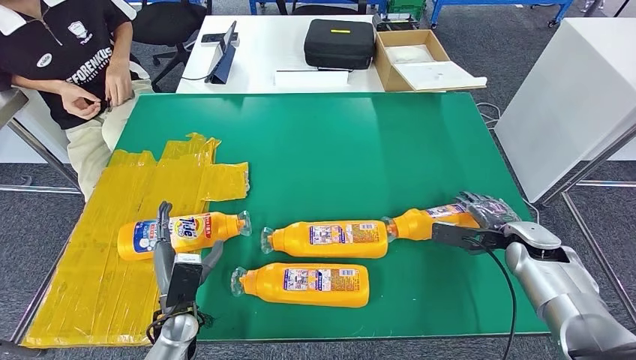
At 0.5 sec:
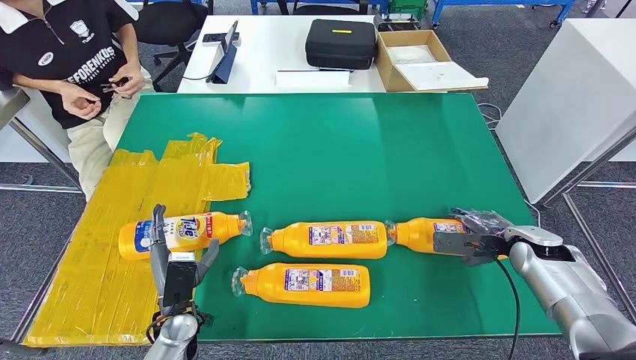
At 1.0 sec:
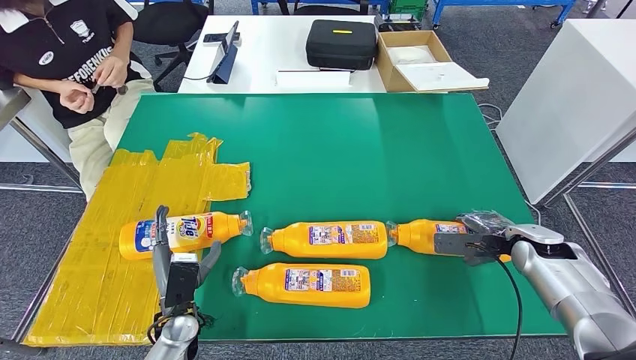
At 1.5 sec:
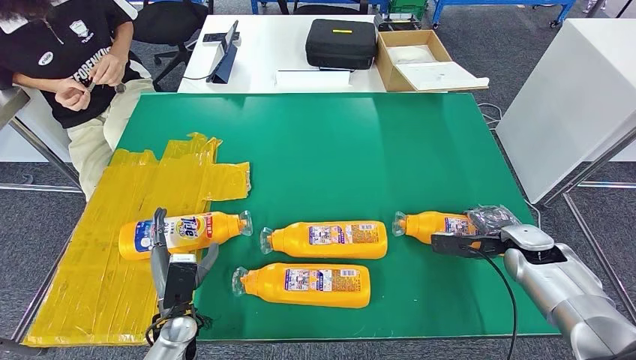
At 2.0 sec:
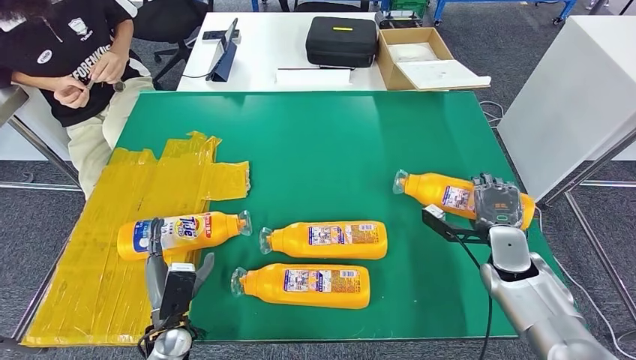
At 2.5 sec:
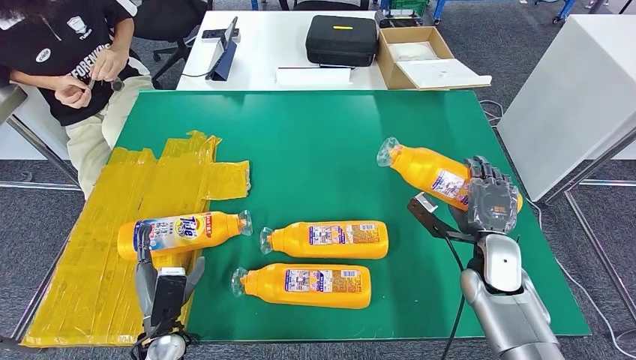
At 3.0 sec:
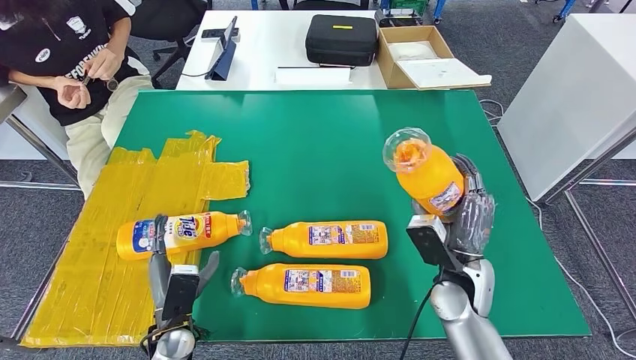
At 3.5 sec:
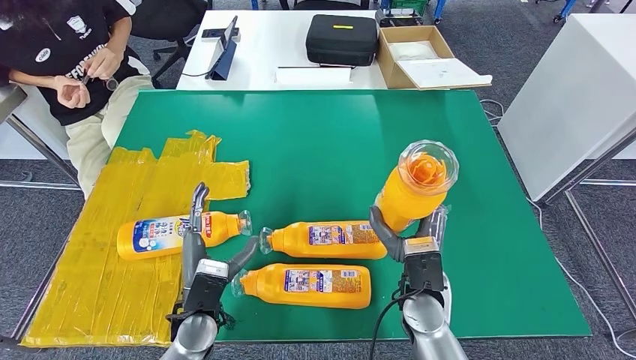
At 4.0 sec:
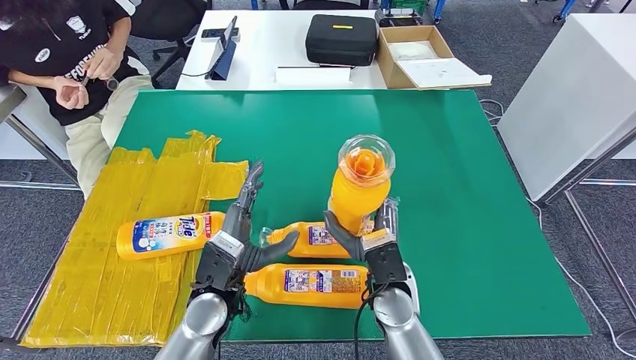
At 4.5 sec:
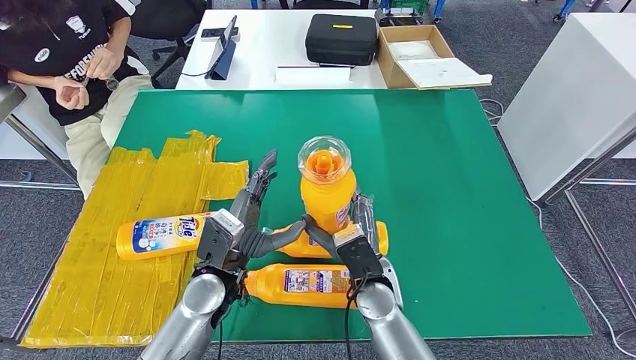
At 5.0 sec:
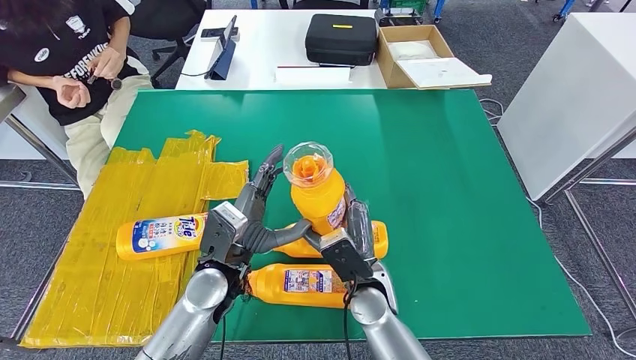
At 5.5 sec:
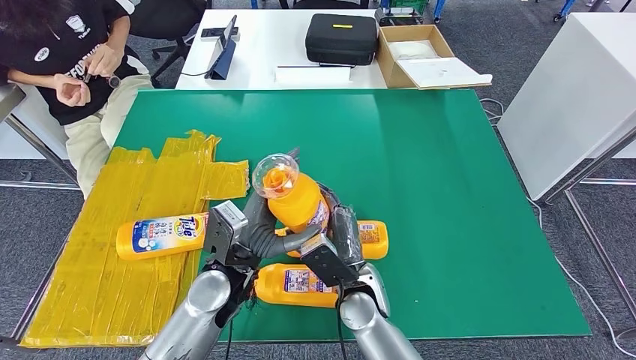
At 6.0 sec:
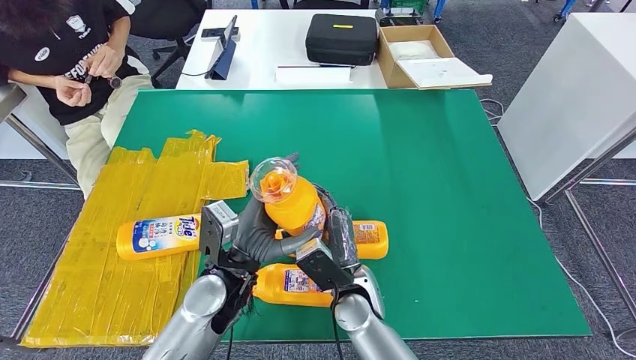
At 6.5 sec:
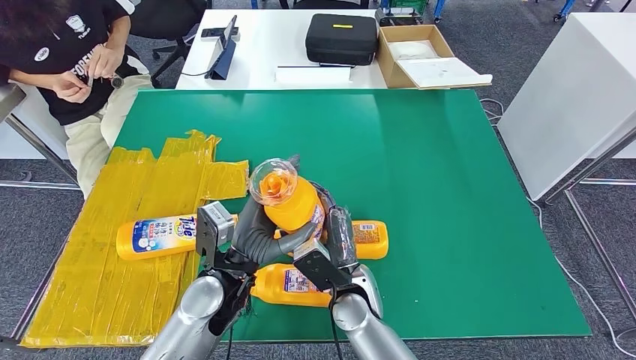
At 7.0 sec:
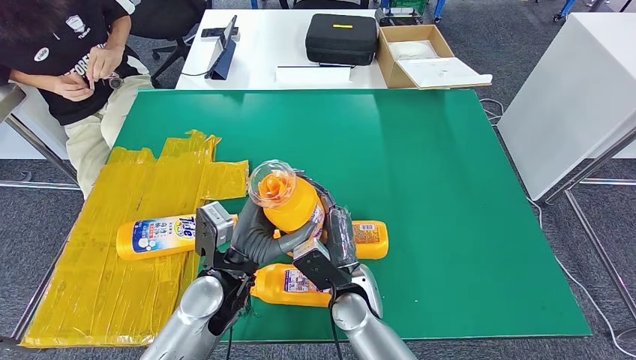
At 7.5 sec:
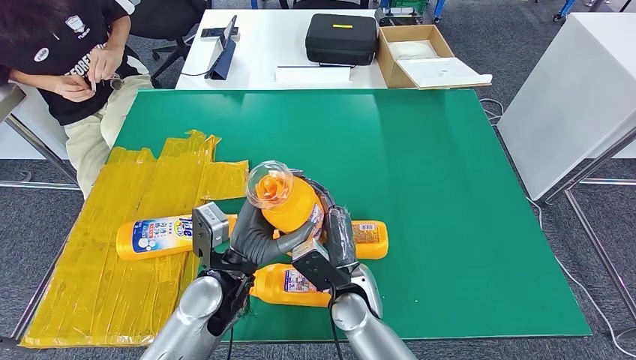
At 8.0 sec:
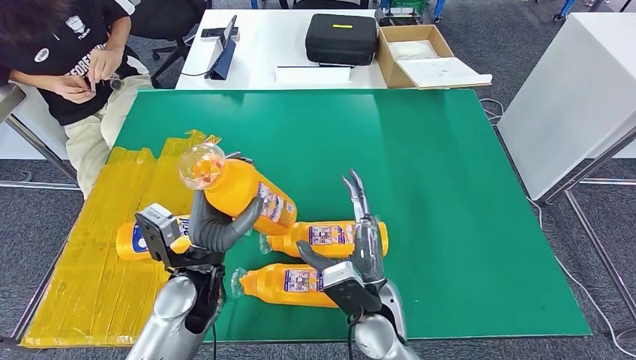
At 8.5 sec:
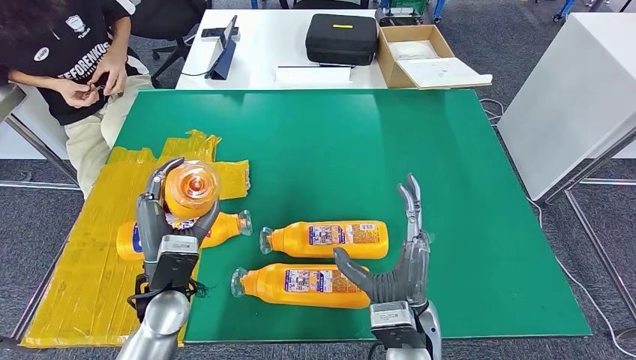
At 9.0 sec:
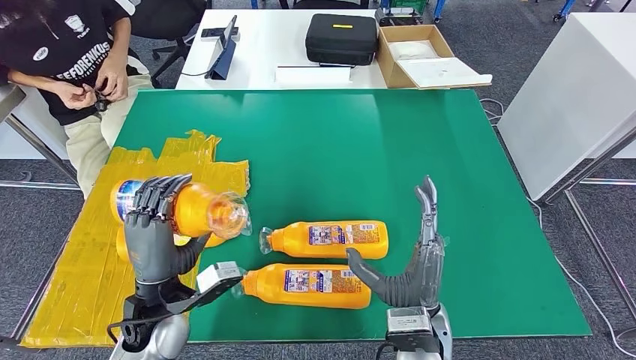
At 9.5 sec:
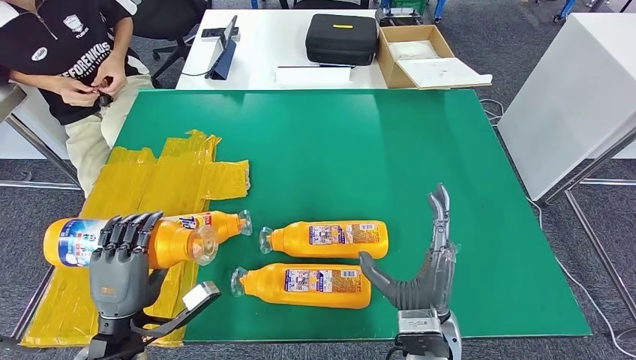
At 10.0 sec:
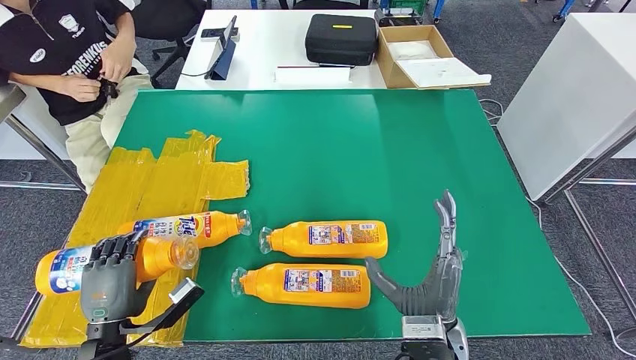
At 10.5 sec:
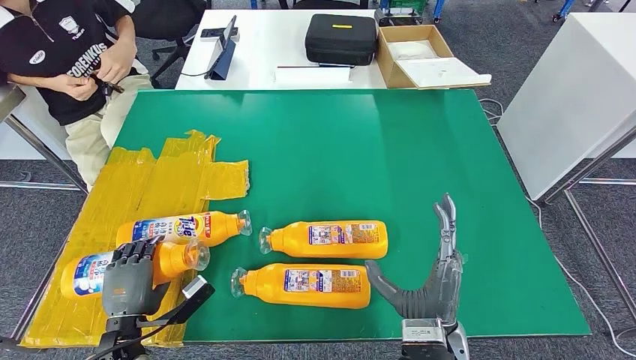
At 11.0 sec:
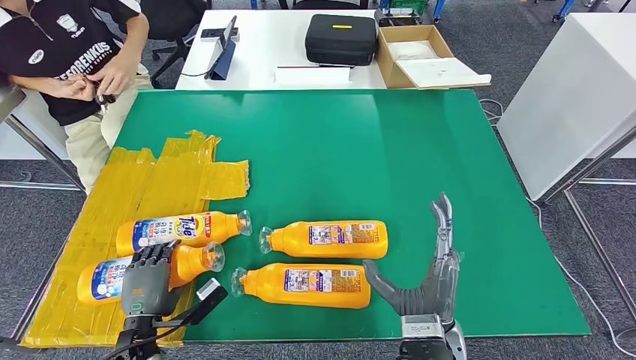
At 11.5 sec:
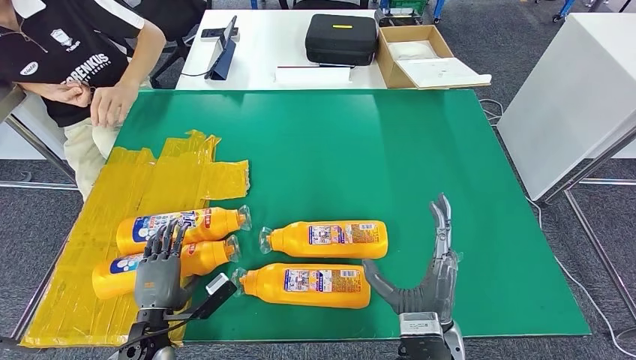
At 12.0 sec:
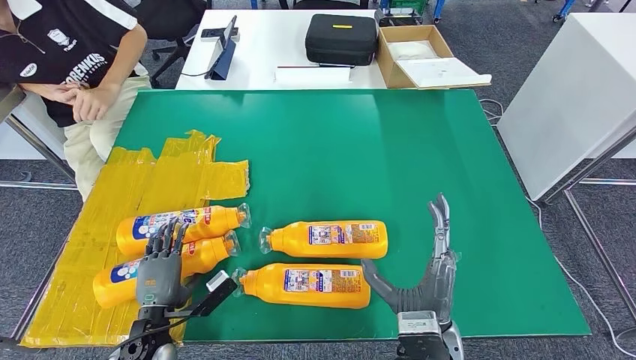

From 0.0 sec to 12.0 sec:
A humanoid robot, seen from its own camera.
Step, from 0.0 sec to 2.5 sec: Pick up the fast-moving consumer goods bottle from the table.
Step, from 7.0 sec to 11.5 sec: Flip the fast-moving consumer goods bottle to the front side.
From 4.0 sec to 6.0 sec: The right hand shifts by some 5 cm.
From 6.0 sec to 8.0 sec: There are only small adjustments of the hands.
From 8.0 sec to 10.0 sec: The left hand moves to the left, backward and downward, about 20 cm; the right hand travels to the right by approximately 10 cm.
From 10.0 sec to 12.0 sec: The left hand travels downward by approximately 5 cm.

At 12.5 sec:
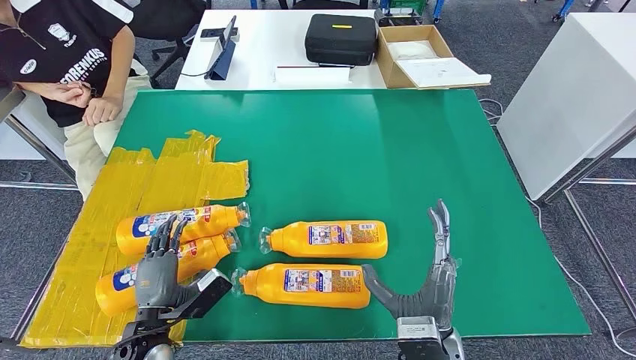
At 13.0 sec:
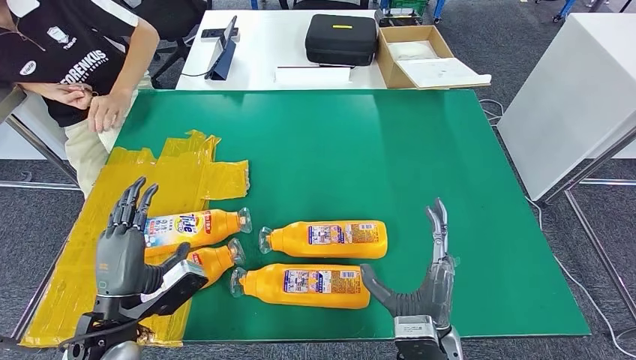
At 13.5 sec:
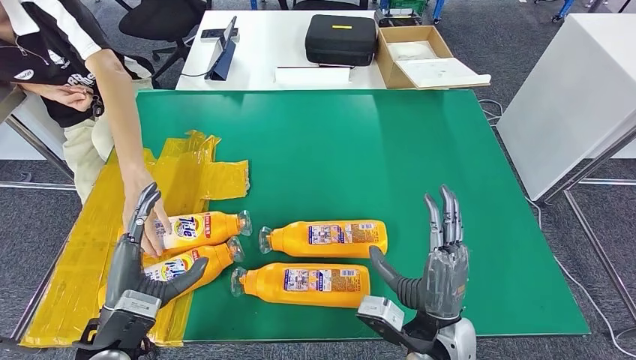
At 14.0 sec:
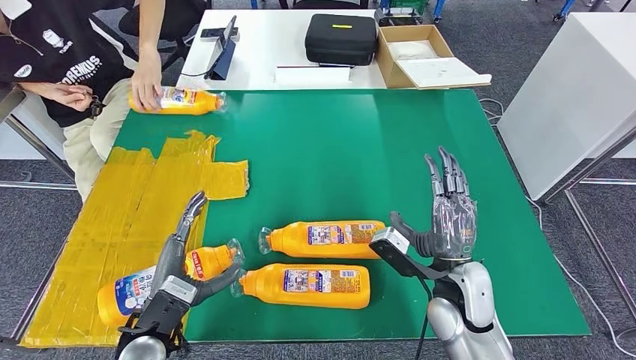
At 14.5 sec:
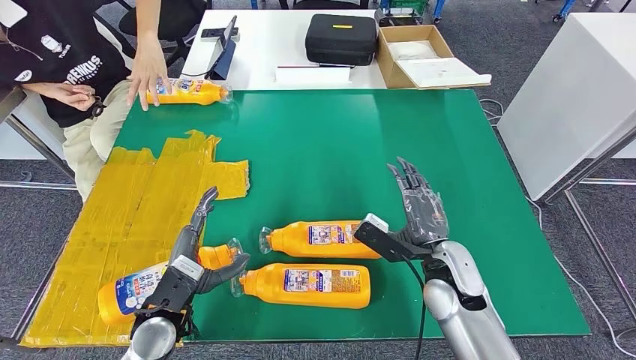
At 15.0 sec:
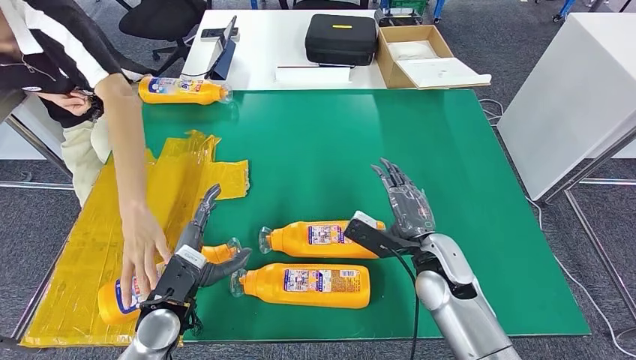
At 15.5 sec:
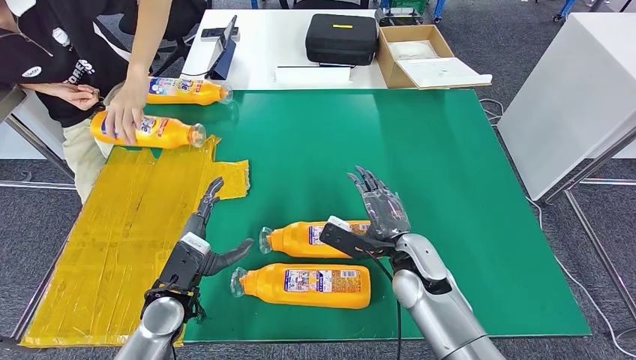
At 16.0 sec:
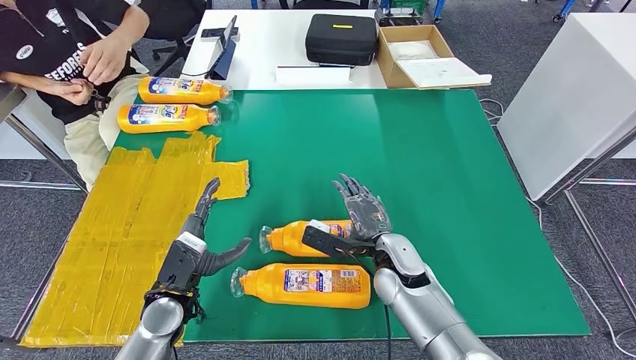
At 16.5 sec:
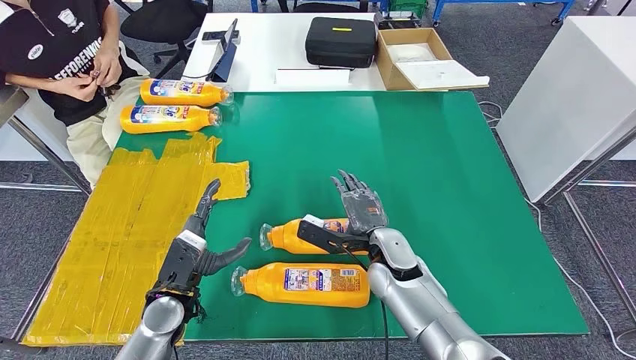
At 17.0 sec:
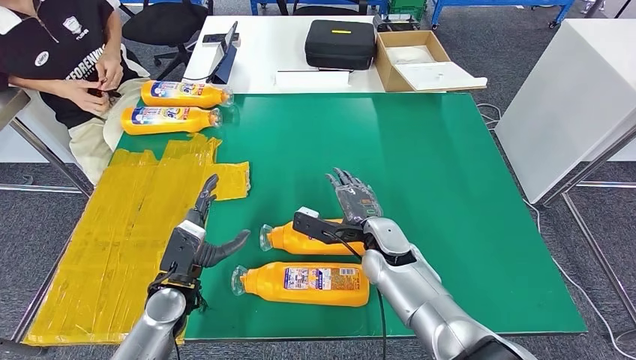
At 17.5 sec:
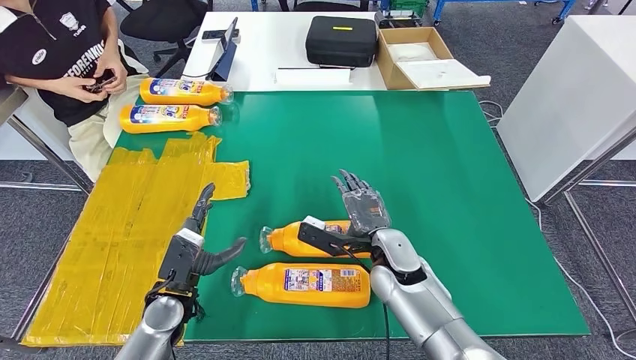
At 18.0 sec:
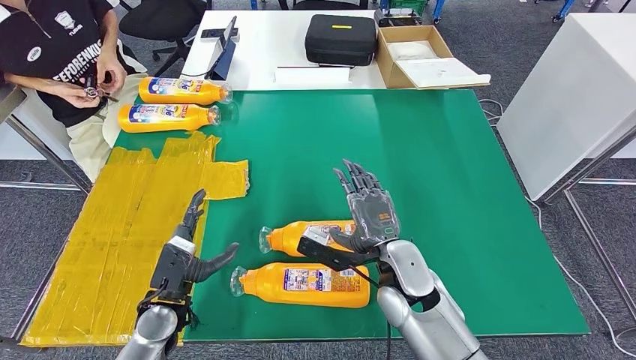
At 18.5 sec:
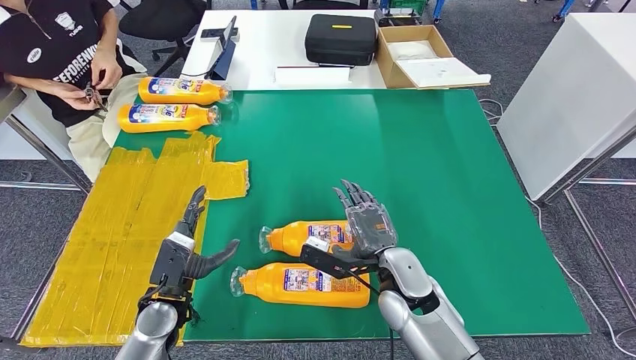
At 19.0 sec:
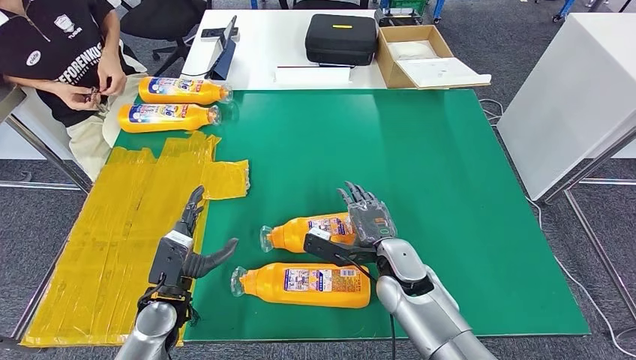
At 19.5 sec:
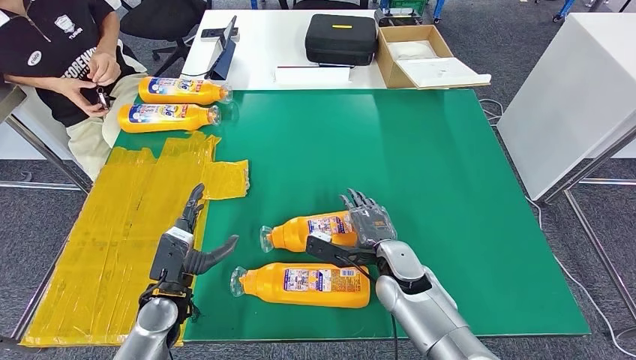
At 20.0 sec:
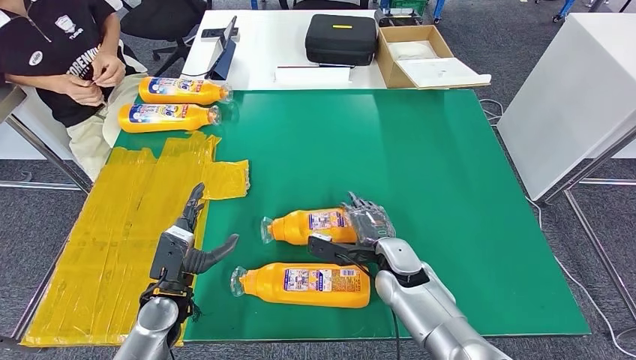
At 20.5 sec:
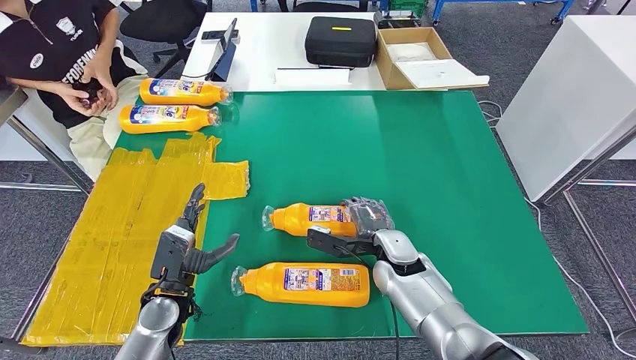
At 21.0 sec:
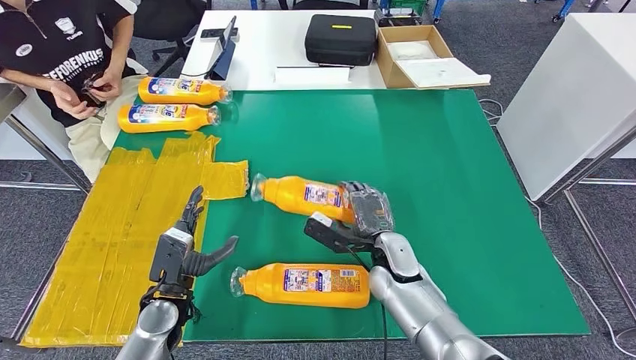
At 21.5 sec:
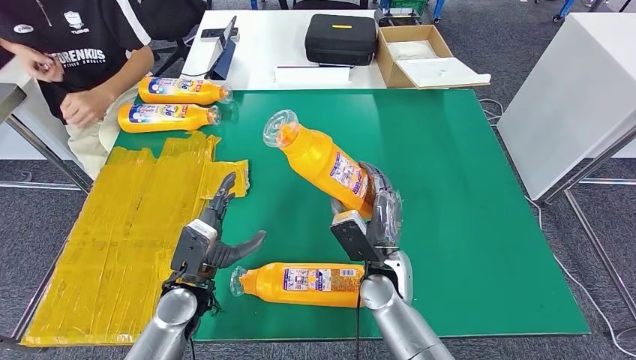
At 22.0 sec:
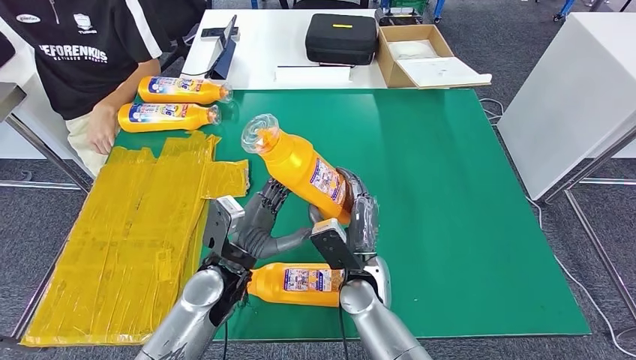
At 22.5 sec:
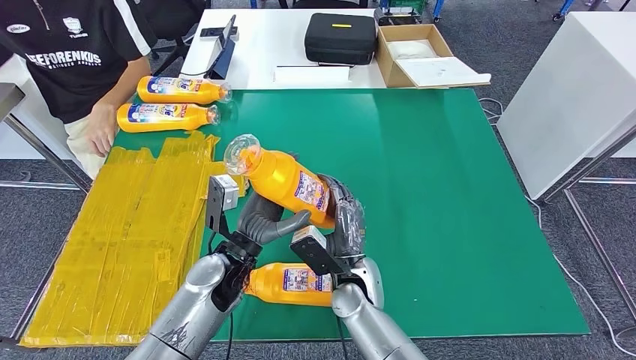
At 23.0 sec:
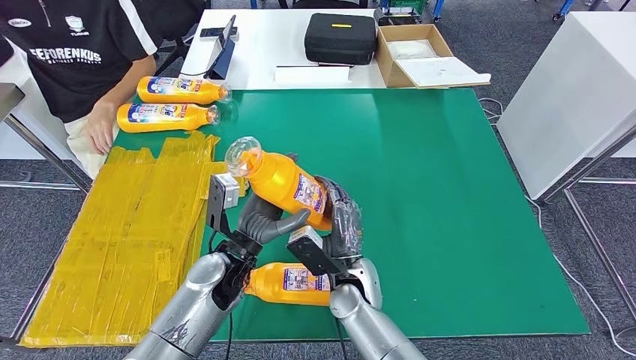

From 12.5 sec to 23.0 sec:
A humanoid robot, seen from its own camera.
Step, from 17.0 sec to 22.5 sec: Pick up the fast-moving consumer goods bottle from the table.
From 12.5 sec to 14.5 sec: The left hand moves some 5 cm; the right hand heads forward and to the right, covering approximately 15 cm.
From 19.0 sec to 21.0 sec: There are only small adjustments of the hands.
